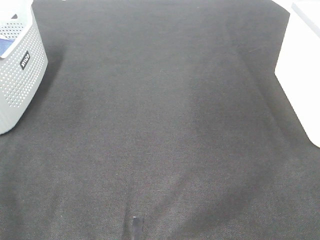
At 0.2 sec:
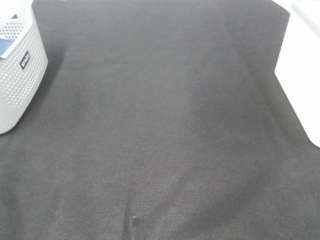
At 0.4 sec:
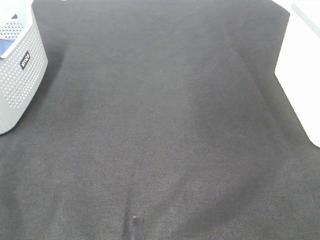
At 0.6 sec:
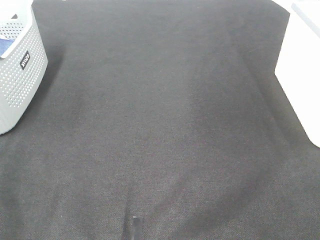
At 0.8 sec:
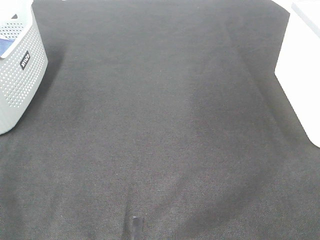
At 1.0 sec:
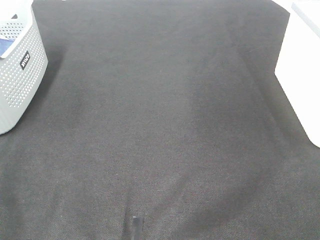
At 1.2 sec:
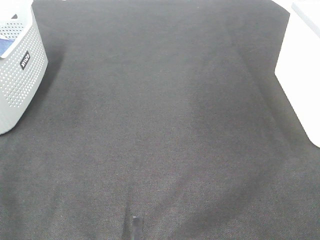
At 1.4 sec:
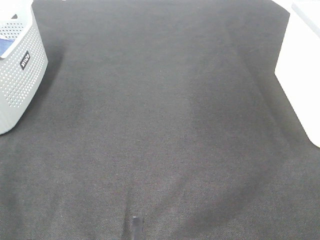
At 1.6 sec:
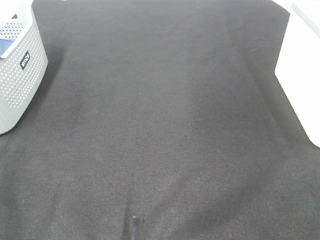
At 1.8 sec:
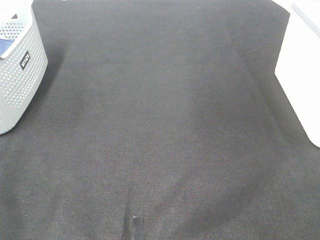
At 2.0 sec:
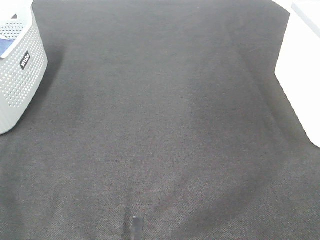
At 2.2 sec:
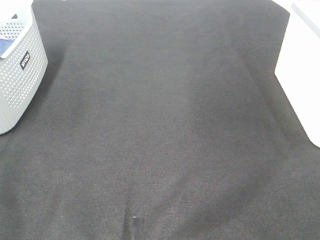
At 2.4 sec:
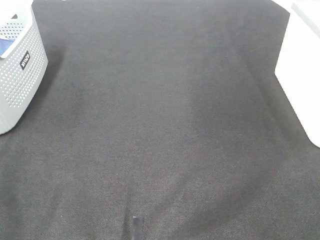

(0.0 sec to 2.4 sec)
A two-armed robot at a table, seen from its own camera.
1.2 sec - 2.4 sec: Neither gripper changes place.
